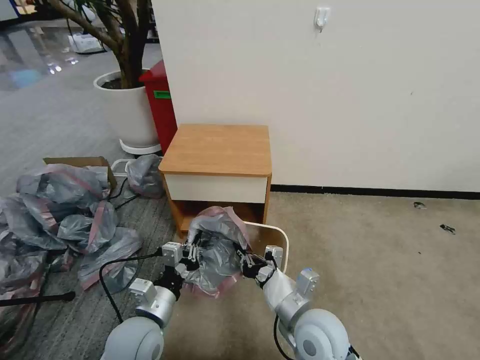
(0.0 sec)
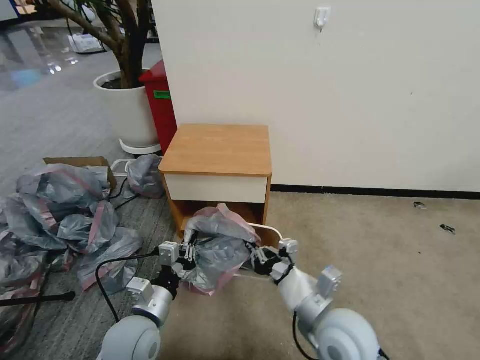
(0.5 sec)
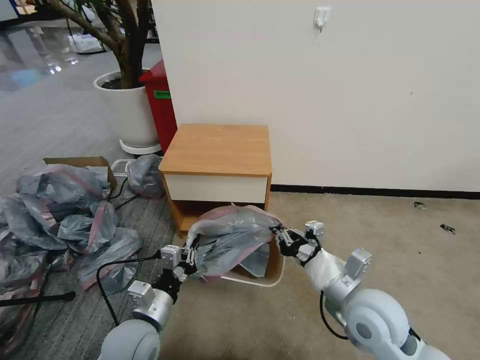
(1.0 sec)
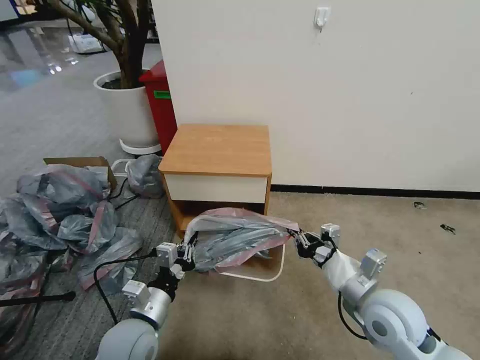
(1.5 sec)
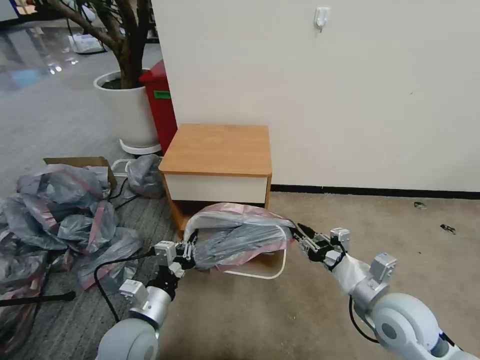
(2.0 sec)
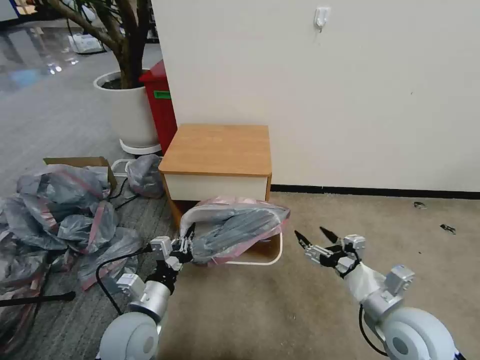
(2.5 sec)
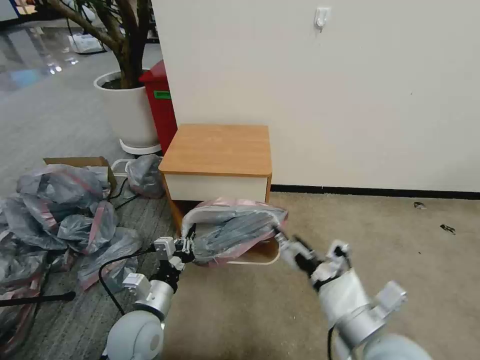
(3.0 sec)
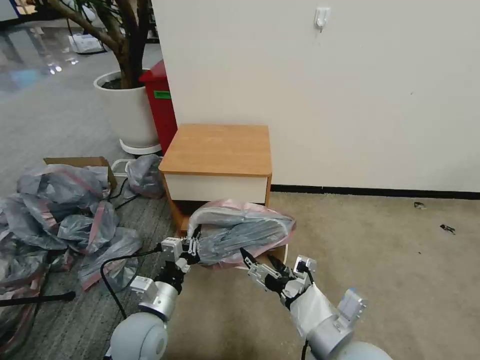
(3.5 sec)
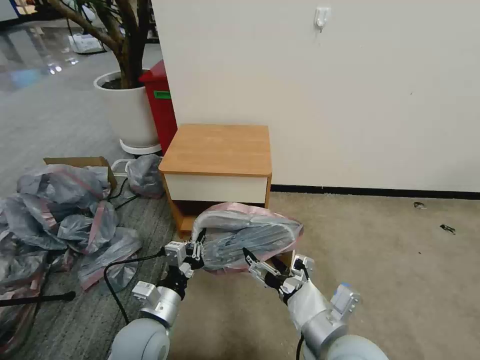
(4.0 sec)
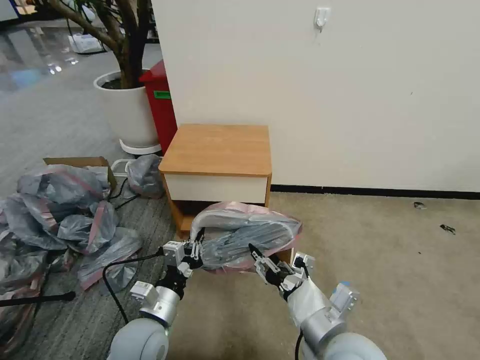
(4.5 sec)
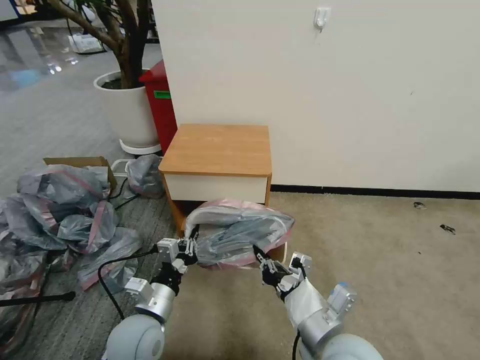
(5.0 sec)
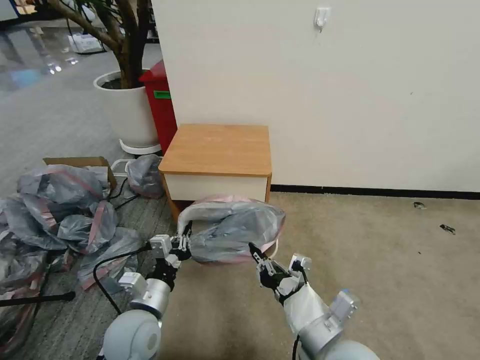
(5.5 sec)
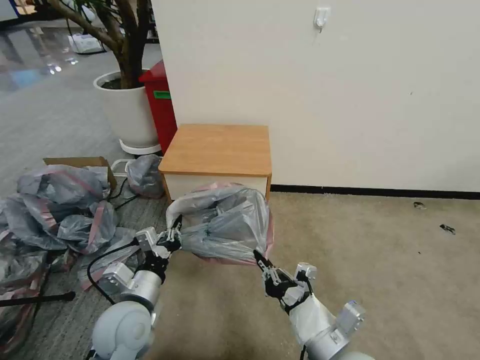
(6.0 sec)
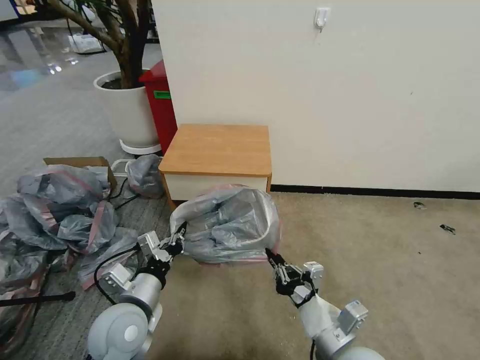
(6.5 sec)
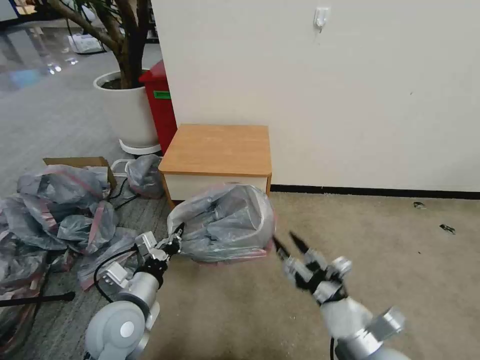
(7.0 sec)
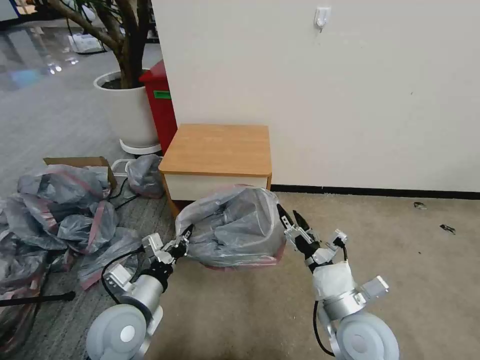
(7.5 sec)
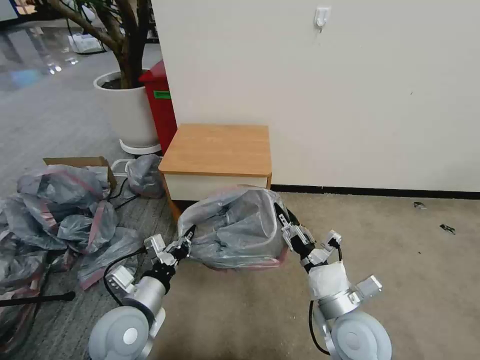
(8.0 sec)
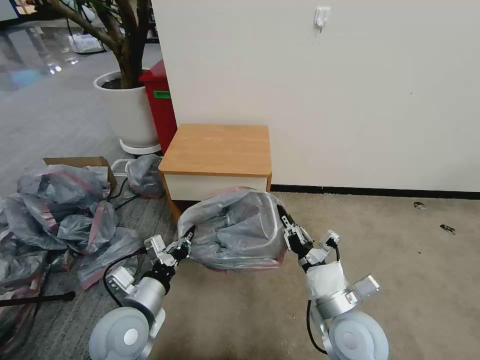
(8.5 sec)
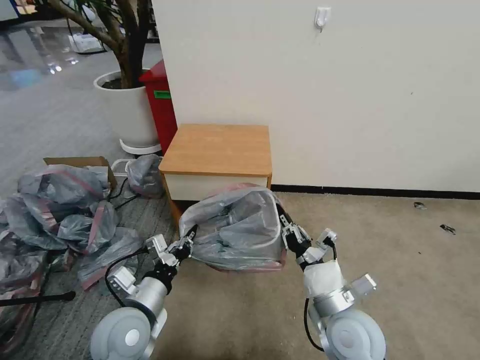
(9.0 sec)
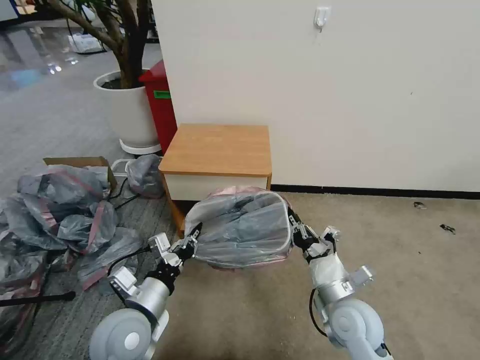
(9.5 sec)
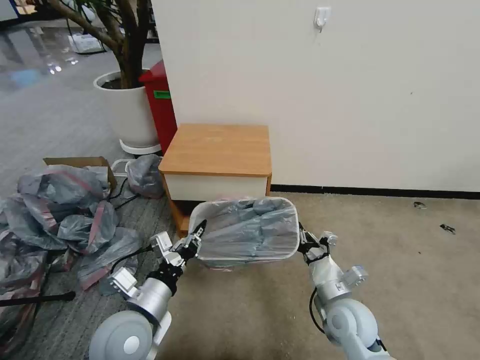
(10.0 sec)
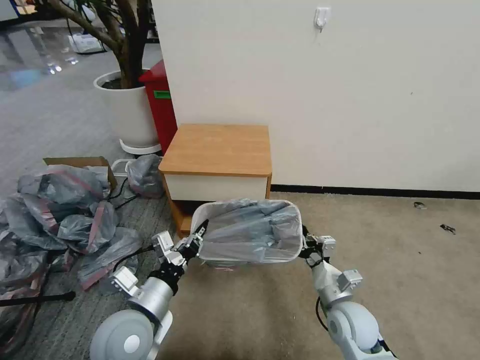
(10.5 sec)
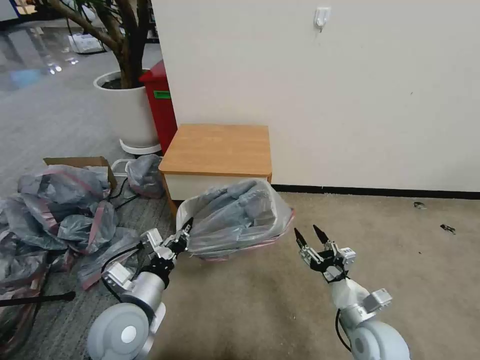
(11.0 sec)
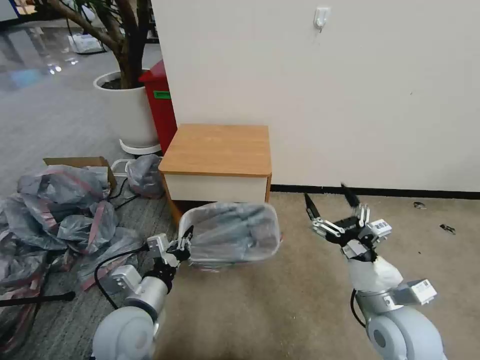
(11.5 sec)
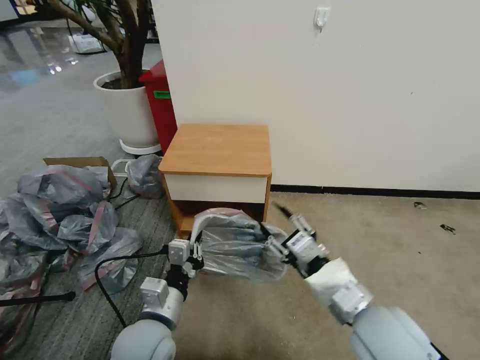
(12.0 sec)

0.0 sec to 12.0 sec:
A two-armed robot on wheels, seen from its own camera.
Task of the whole recording: Pick up the garbage bag from the table and place it over the trash can.
0.0 sec to 2.0 sec: The right gripper goes some 15 cm to the right, and opens up.
2.0 sec to 4.0 sec: The right gripper shifts roughly 15 cm to the left and backward, and opens its fingers.
4.0 sec to 6.0 sec: The right gripper closes its fingers.
6.0 sec to 8.0 sec: The right gripper travels forward by approximately 5 cm, and opens up.
8.0 sec to 10.0 sec: The right gripper heads downward, covering some 5 cm, and closes up.
10.0 sec to 12.0 sec: The right gripper is displaced upward by about 15 cm, and opens its fingers.

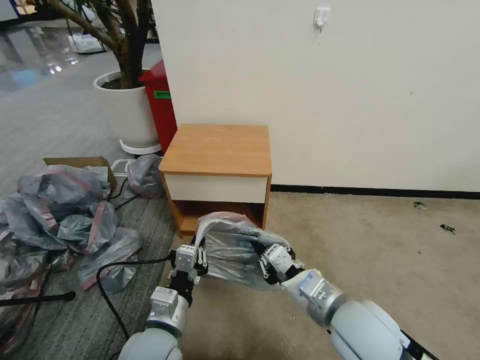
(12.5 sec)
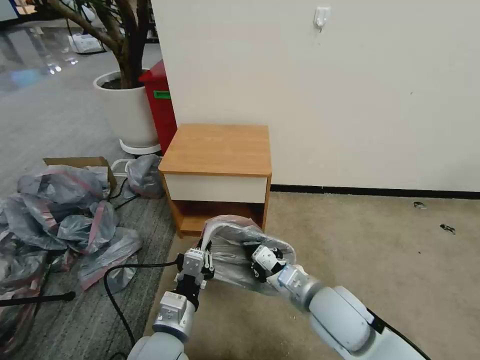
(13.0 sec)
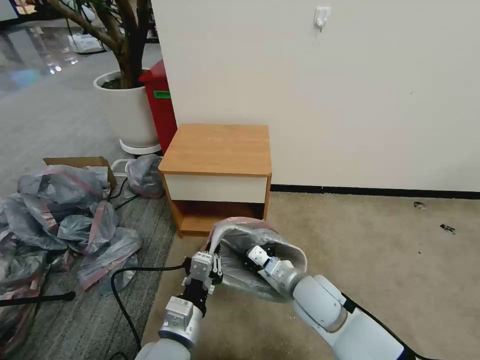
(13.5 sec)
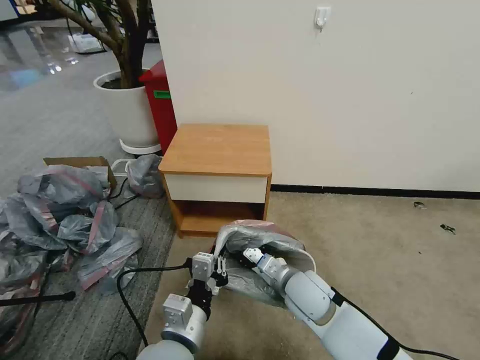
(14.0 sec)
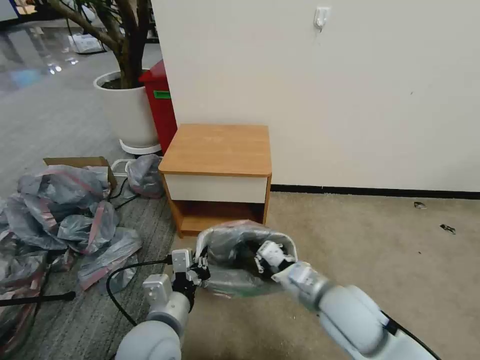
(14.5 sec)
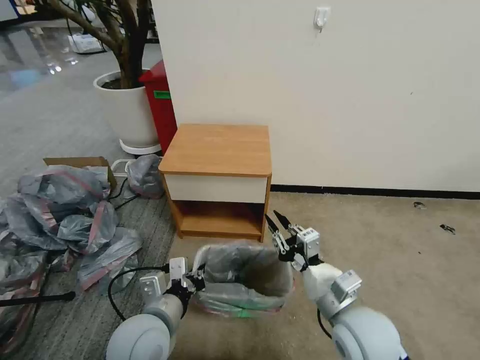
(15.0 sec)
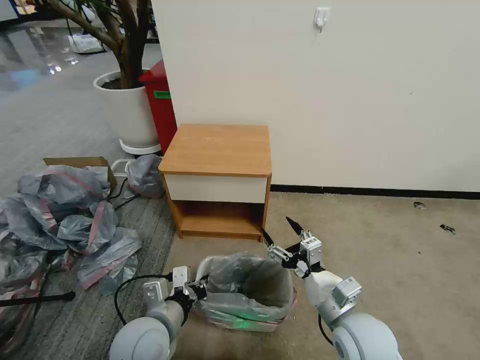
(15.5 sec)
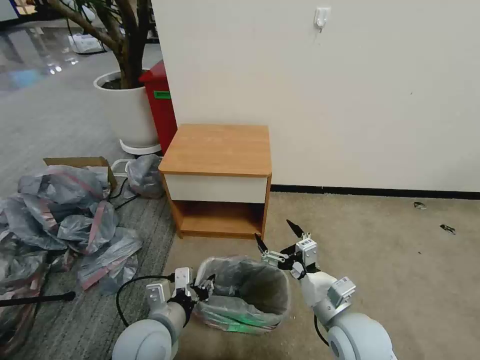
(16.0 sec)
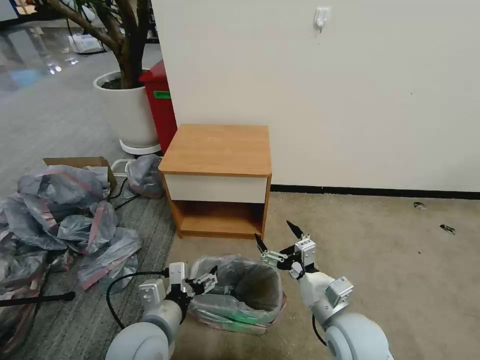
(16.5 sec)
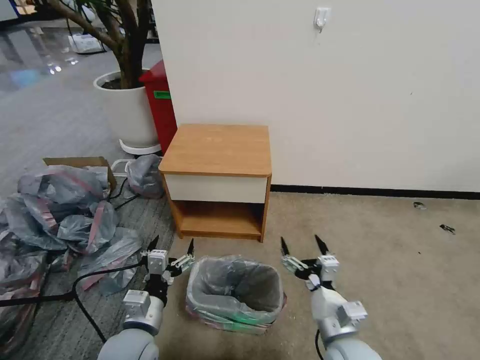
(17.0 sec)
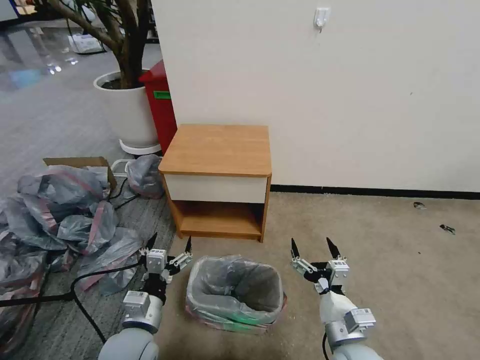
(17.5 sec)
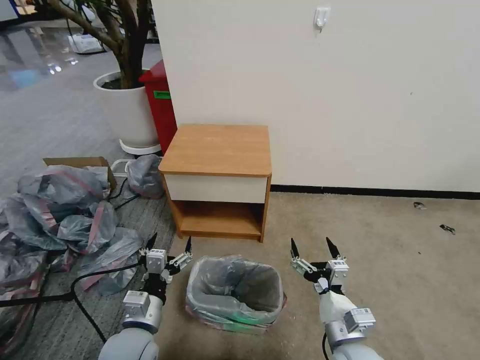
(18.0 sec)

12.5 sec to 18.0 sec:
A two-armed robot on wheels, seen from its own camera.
Task of the whole recording: Pick up the garbage bag from the table and place it over the trash can.
12.5 sec to 14.5 sec: The right gripper moves approximately 10 cm downward and comes back.
14.5 sec to 16.0 sec: The right gripper moves some 5 cm, and opens its fingers. The left gripper ends up approximately 5 cm from where it was, and opens.
16.0 sec to 18.0 sec: The left gripper moves roughly 5 cm, and opens its fingers. The right gripper ends up approximately 5 cm from where it was.

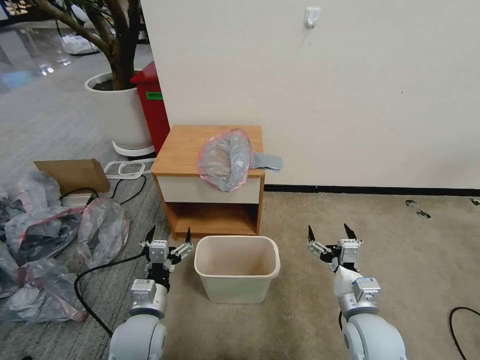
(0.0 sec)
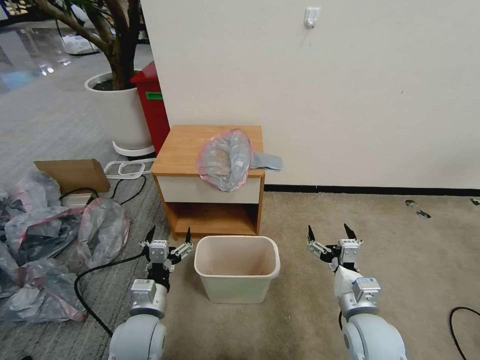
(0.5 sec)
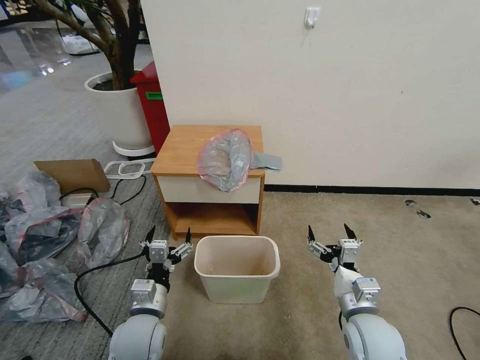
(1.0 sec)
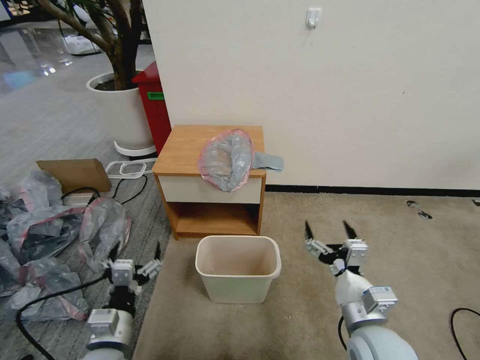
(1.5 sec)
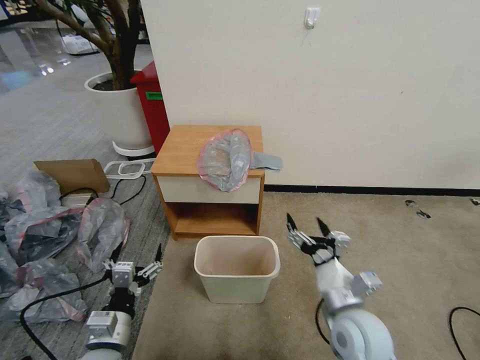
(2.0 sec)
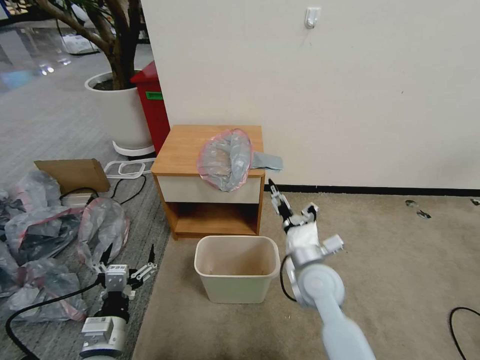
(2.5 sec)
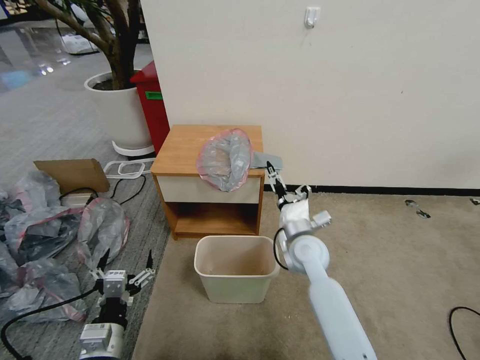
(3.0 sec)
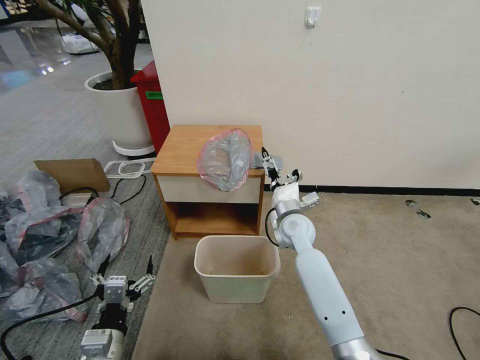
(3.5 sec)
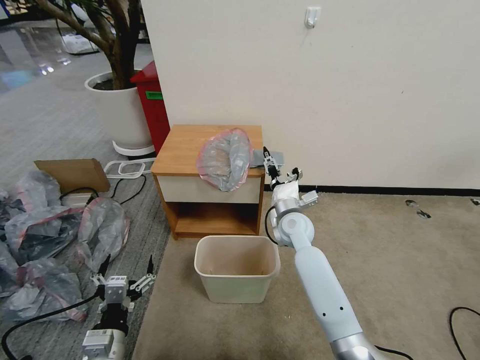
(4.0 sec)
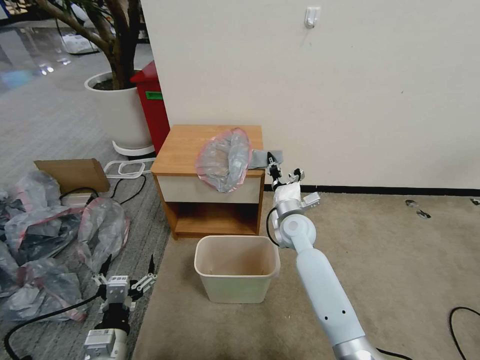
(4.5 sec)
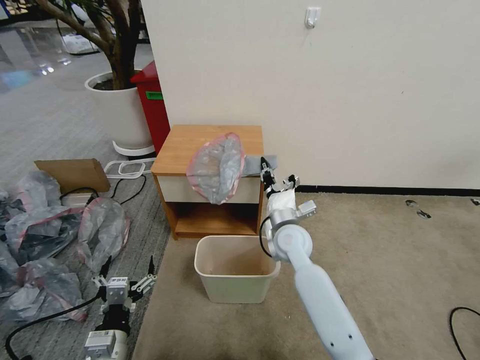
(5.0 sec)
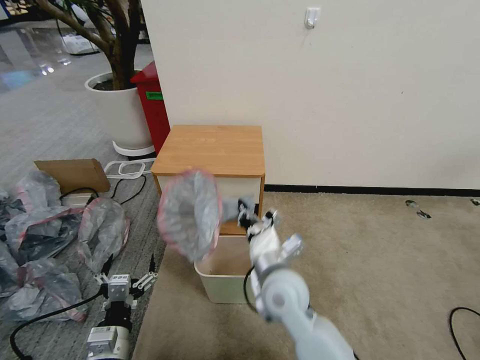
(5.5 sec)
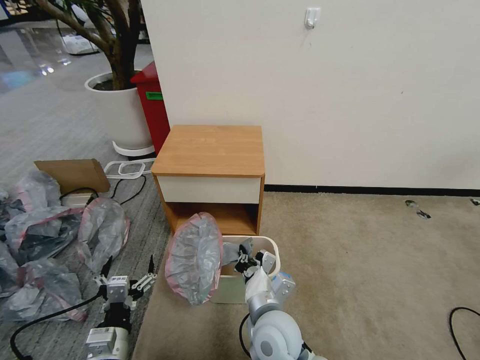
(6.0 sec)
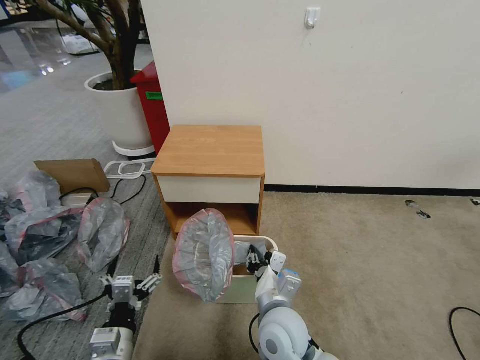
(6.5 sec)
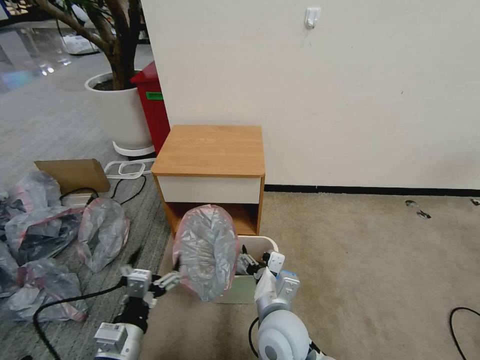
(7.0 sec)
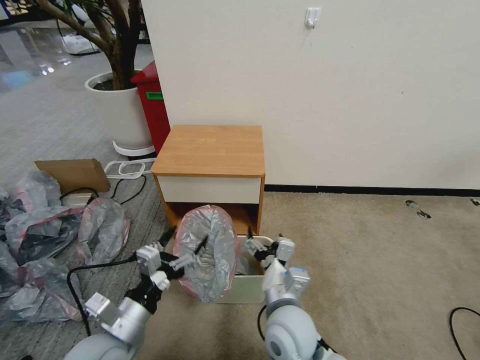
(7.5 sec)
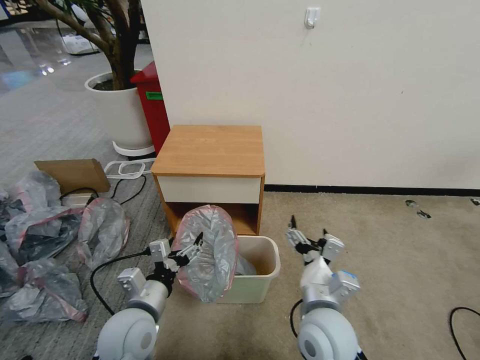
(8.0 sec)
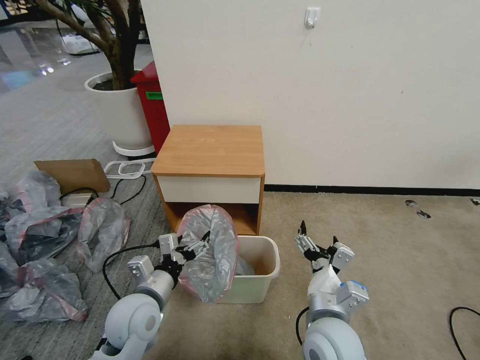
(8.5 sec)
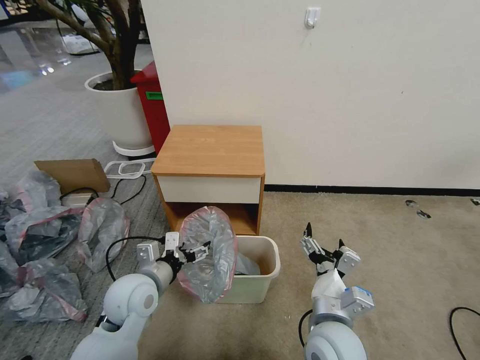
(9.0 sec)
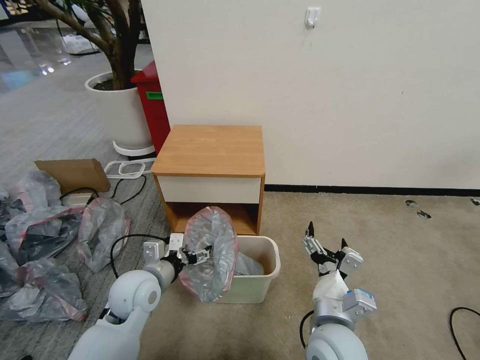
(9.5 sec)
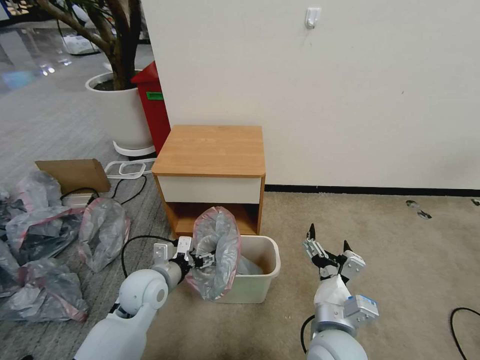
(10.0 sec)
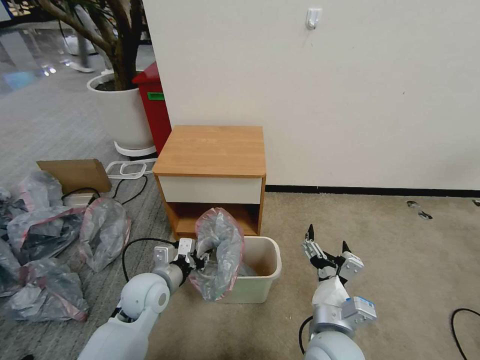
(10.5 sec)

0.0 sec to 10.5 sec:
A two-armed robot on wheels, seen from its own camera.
Task of the whole recording: Pick up the garbage bag from the table and place it over the trash can.
2.0 sec to 4.0 sec: The right gripper is displaced forward by about 25 cm, and closes.
4.0 sec to 6.5 sec: The right gripper heads backward, covering about 25 cm, and closes, then reopens.
6.5 sec to 8.5 sec: The right gripper shifts about 10 cm to the right, and opens its fingers; the left gripper is displaced forward by approximately 10 cm.
8.5 sec to 10.5 sec: The left gripper heads forward, covering approximately 5 cm, and closes its fingers.
